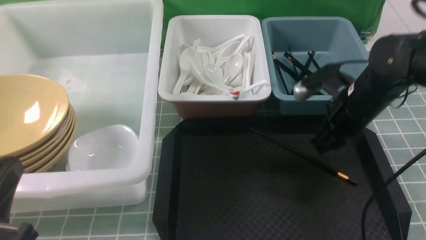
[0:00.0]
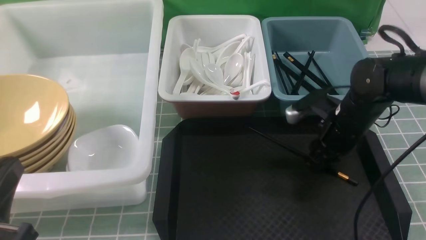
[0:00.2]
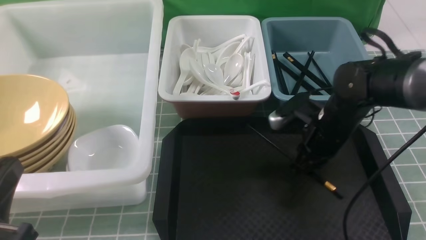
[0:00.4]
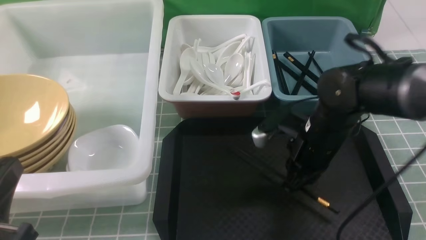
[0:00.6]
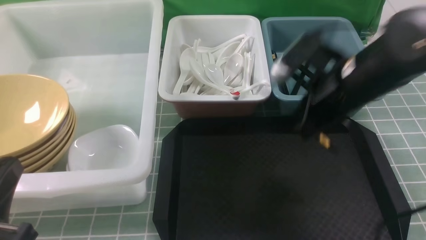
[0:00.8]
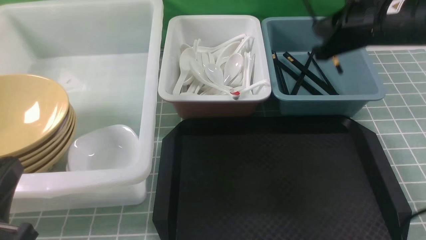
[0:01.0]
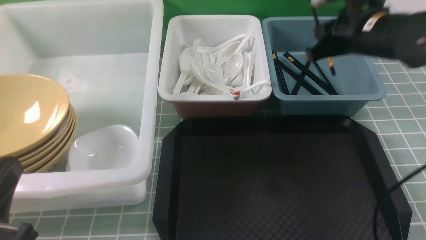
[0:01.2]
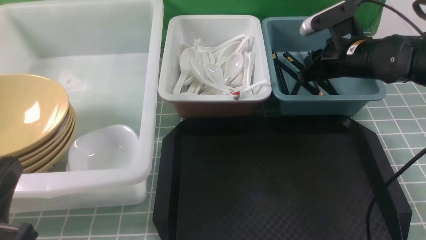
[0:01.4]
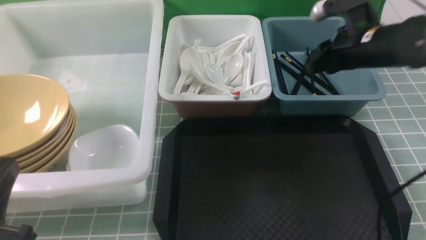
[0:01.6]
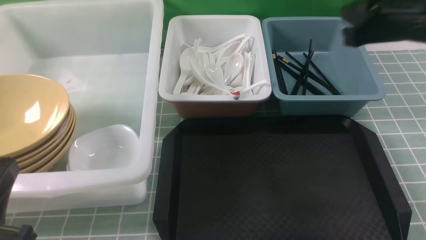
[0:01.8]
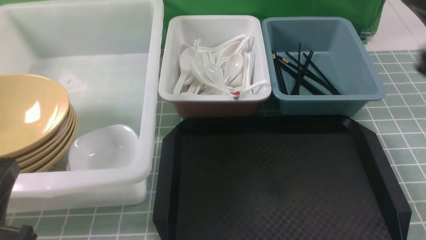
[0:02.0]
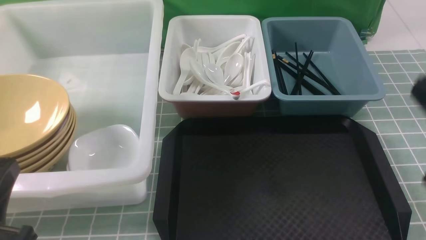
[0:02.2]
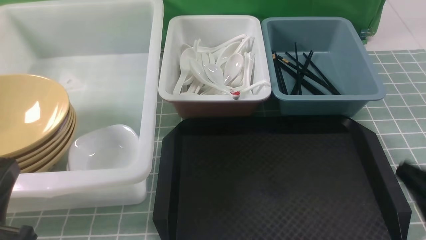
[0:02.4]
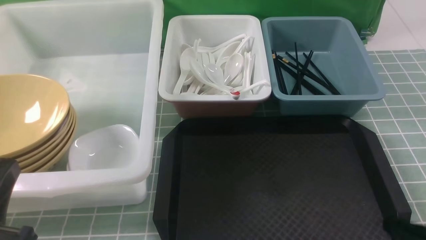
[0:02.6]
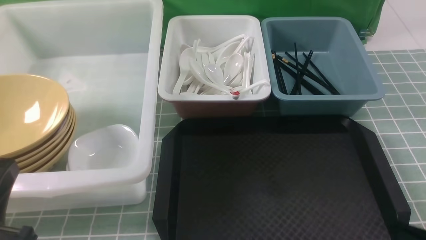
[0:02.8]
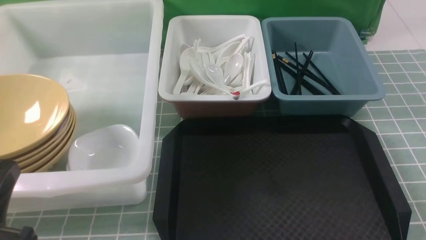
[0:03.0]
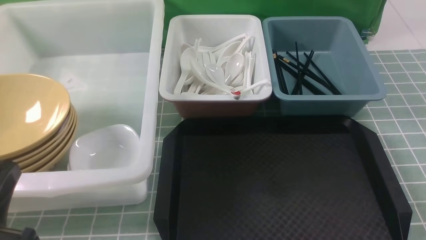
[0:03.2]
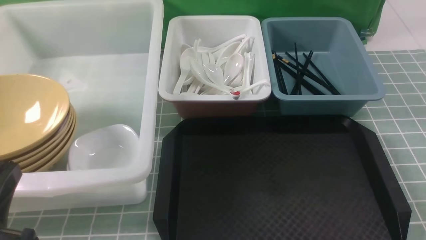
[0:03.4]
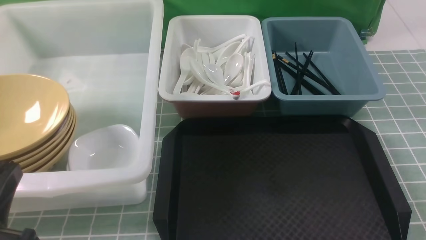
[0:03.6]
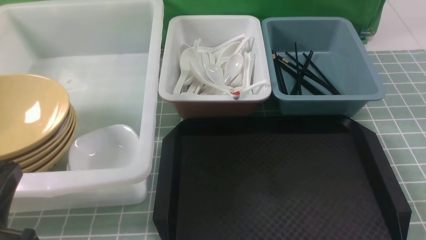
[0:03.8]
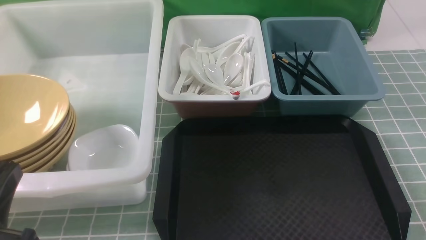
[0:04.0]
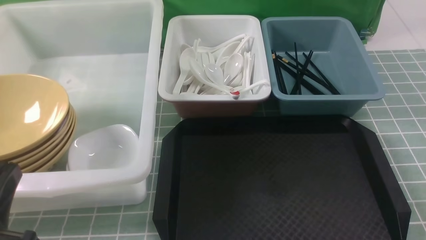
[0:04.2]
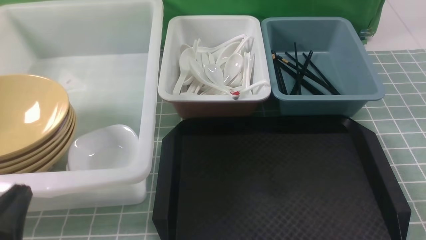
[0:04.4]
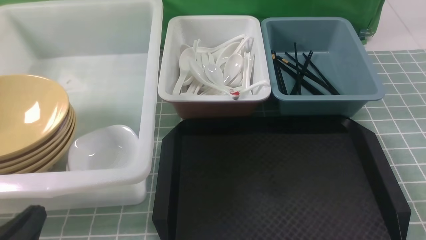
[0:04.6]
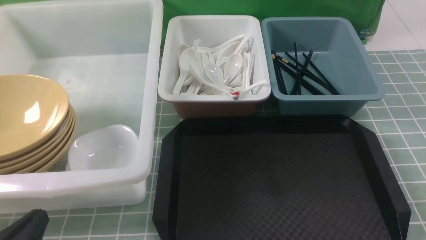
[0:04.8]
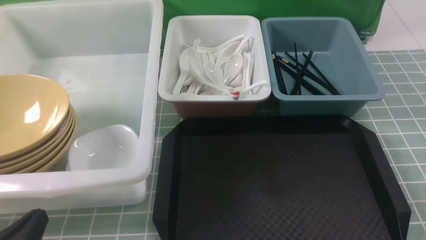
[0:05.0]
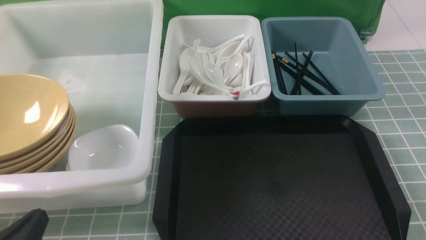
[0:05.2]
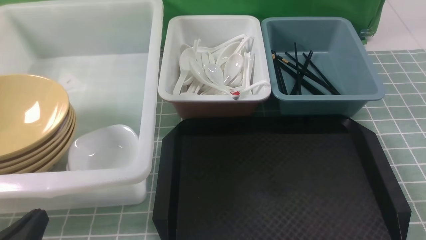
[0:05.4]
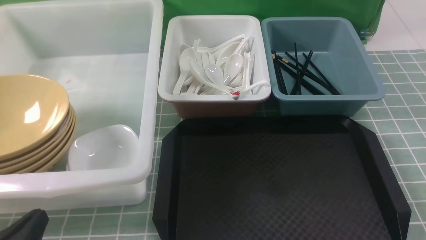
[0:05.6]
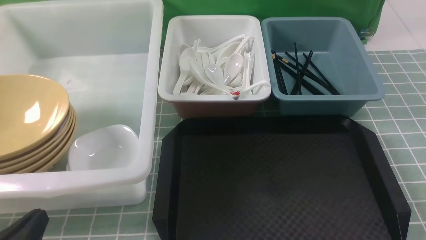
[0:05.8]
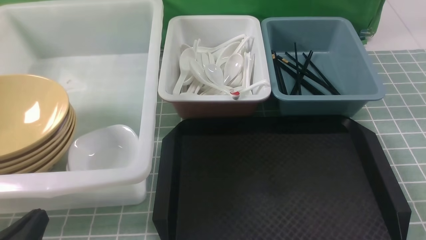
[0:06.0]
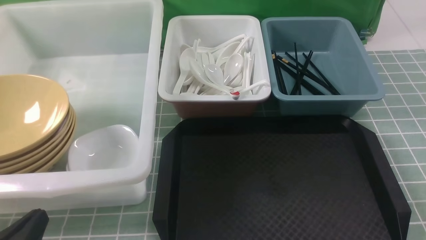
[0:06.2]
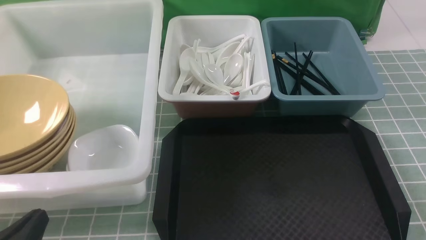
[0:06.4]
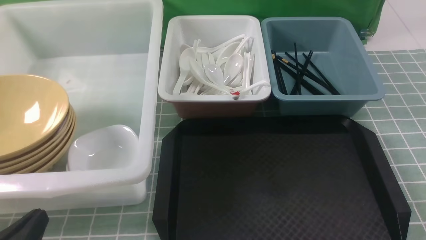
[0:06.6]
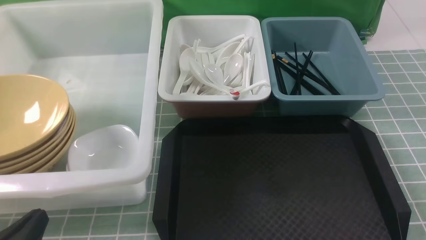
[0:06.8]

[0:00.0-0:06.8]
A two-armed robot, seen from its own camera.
Task of the whole recording: on blue table put chopsticks spoon bowls plates into blue grey white boxes.
Step, 0:00.0 to 0:00.6: use the right arm to grab a chopstick.
Step, 0:00.8 to 0:01.4: use the right arm to put a chopstick into the small storage box on the right.
0:00.0 to 0:01.4: The right gripper moves upward, some 5 cm.
0:01.4 to 0:02.8: The right gripper is displaced backward by about 30 cm, and closes.
0:04.0 to 0:05.4: The left gripper is displaced downward by about 10 cm.
0:05.4 to 0:06.8: The two grippers keep their place.

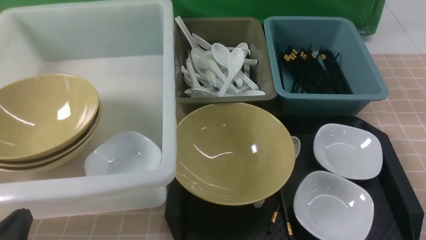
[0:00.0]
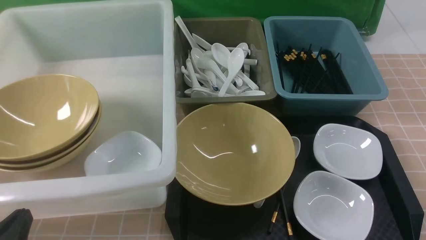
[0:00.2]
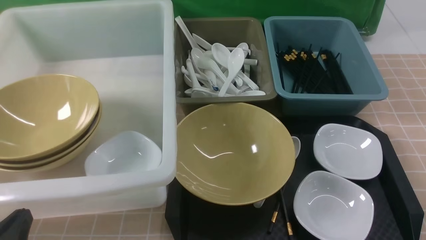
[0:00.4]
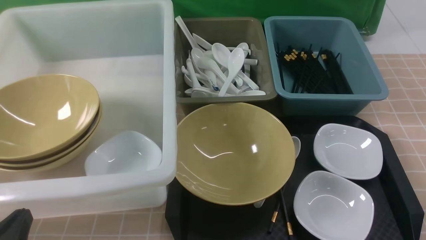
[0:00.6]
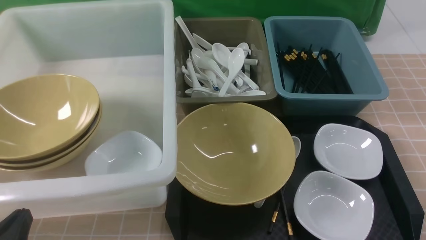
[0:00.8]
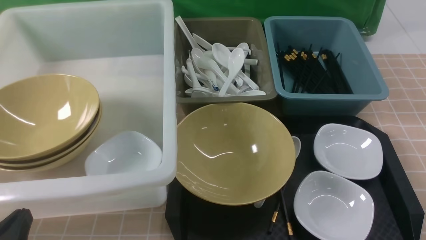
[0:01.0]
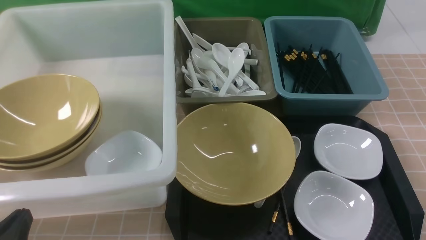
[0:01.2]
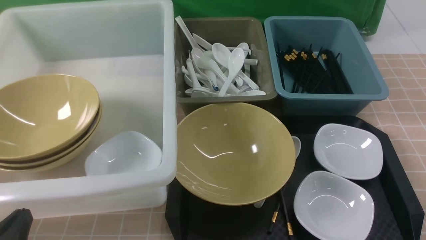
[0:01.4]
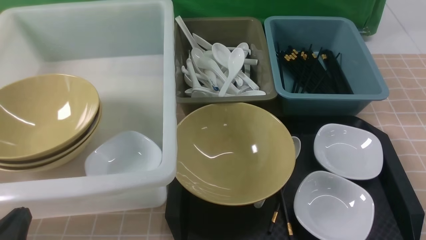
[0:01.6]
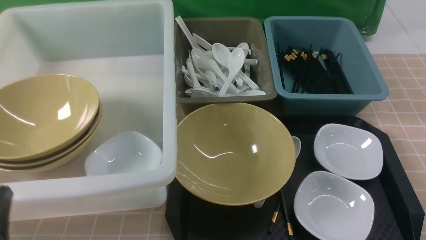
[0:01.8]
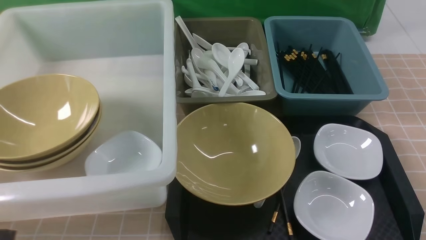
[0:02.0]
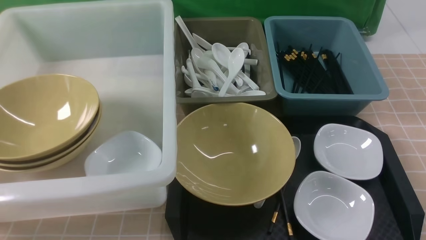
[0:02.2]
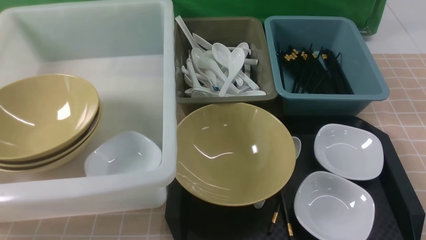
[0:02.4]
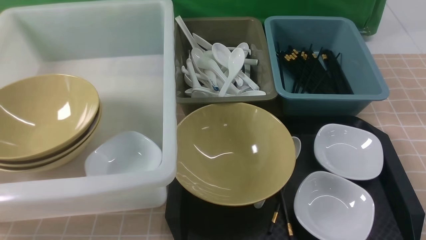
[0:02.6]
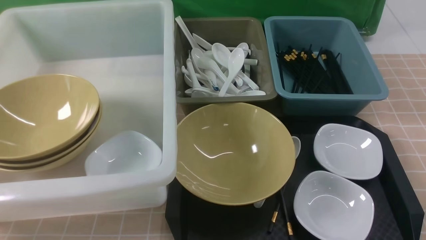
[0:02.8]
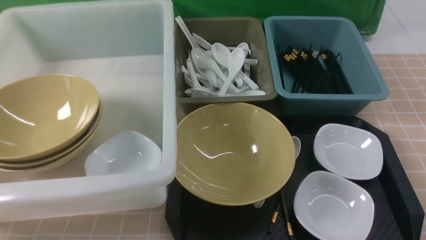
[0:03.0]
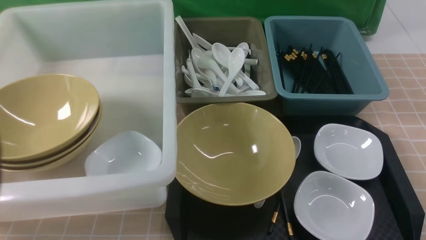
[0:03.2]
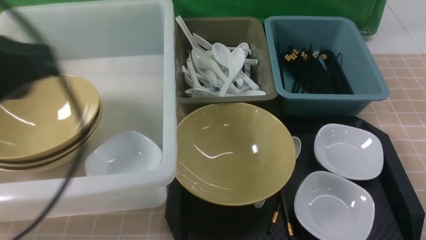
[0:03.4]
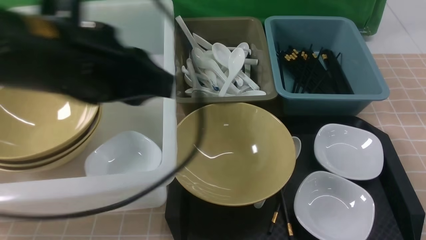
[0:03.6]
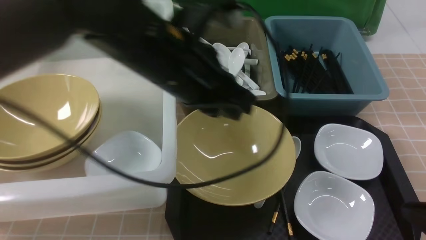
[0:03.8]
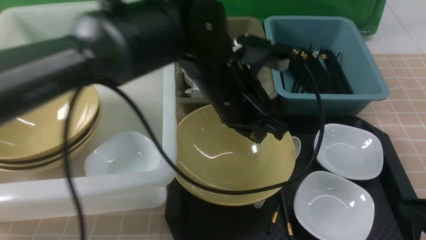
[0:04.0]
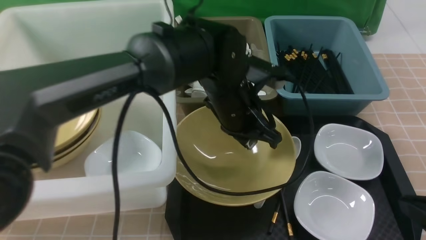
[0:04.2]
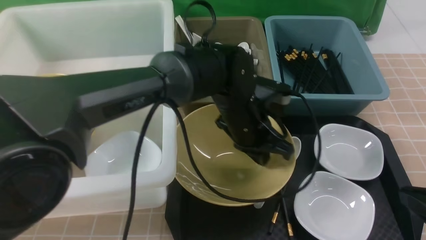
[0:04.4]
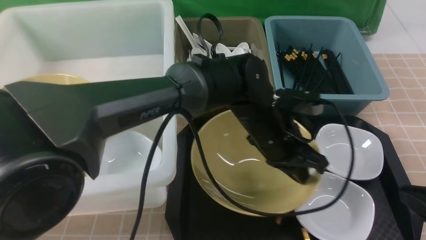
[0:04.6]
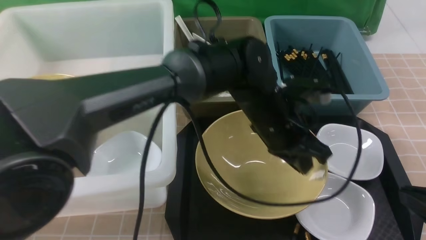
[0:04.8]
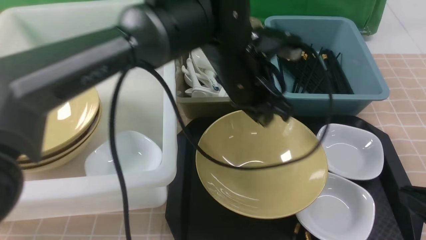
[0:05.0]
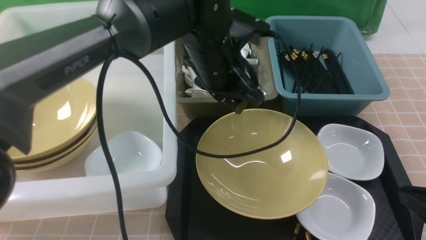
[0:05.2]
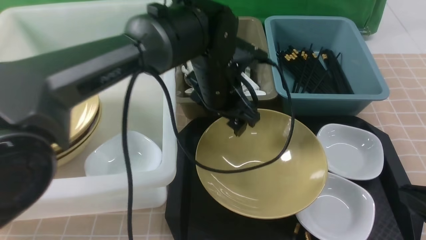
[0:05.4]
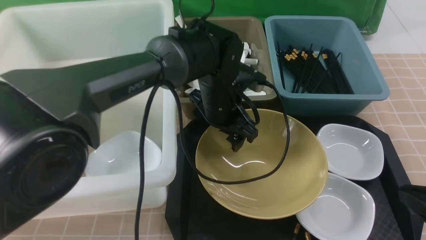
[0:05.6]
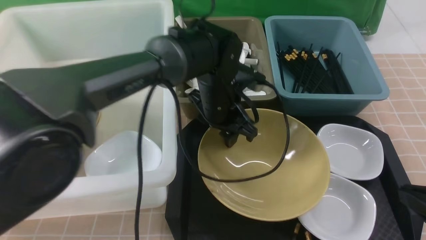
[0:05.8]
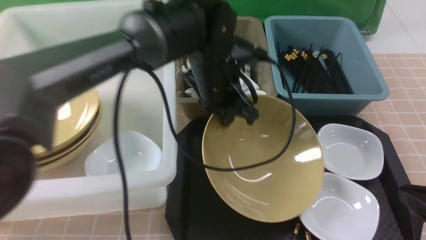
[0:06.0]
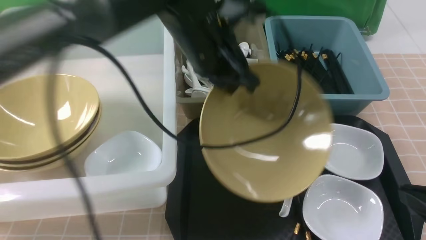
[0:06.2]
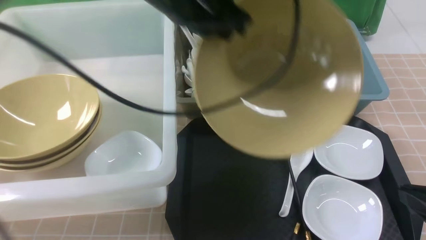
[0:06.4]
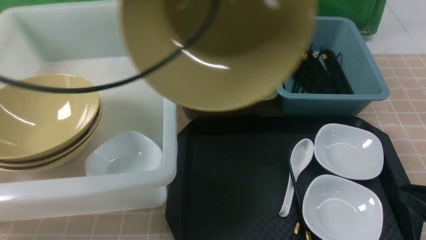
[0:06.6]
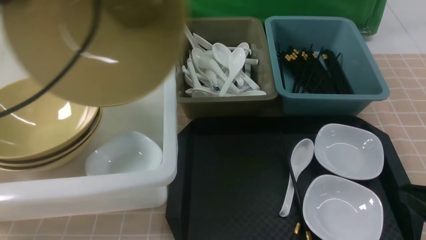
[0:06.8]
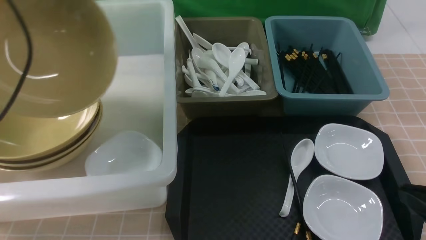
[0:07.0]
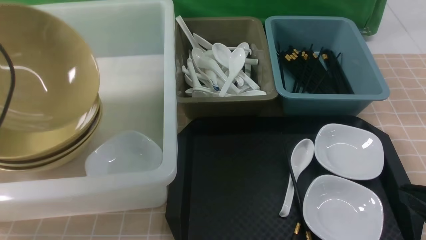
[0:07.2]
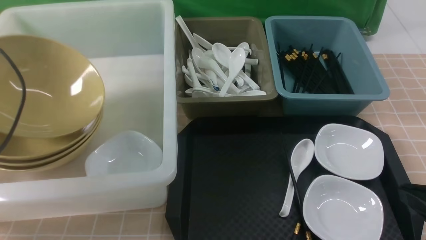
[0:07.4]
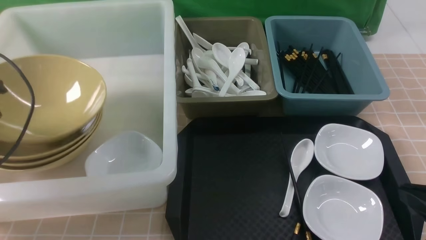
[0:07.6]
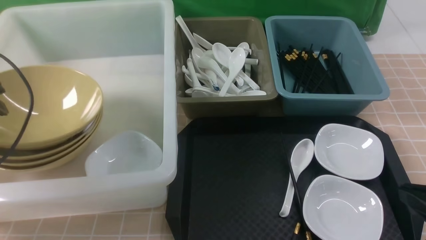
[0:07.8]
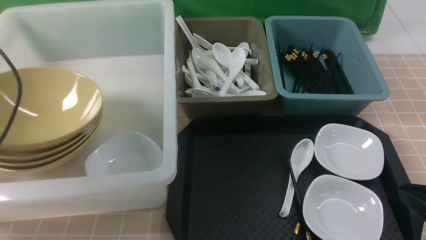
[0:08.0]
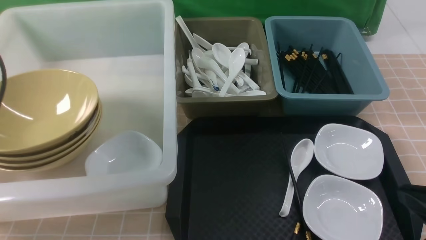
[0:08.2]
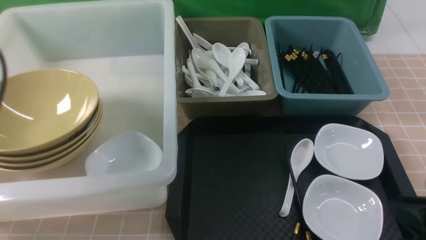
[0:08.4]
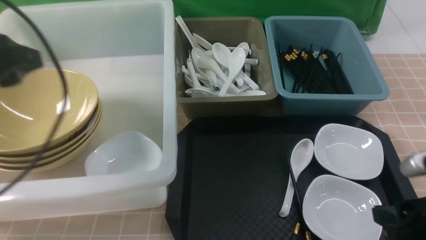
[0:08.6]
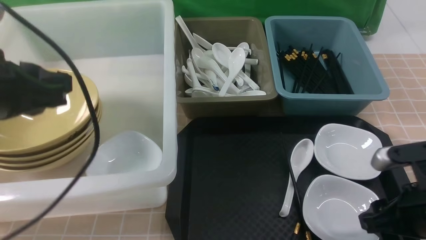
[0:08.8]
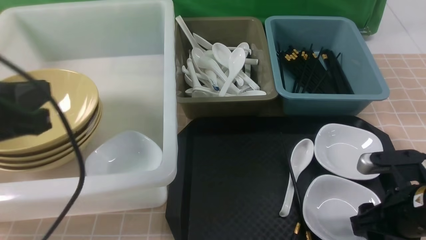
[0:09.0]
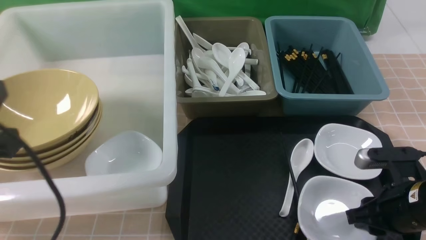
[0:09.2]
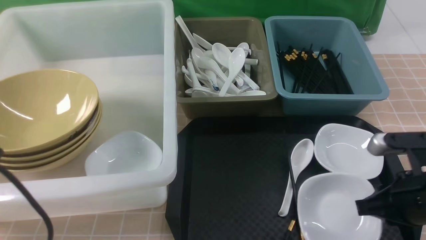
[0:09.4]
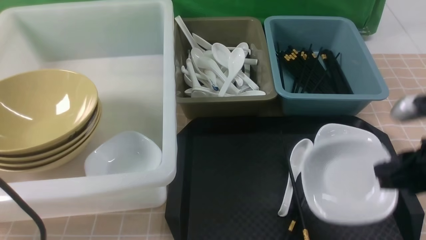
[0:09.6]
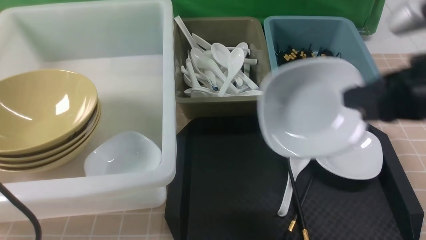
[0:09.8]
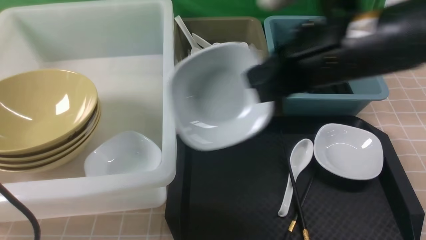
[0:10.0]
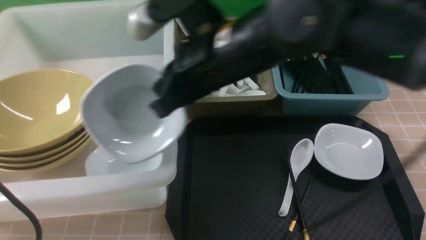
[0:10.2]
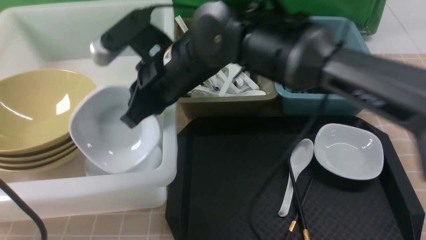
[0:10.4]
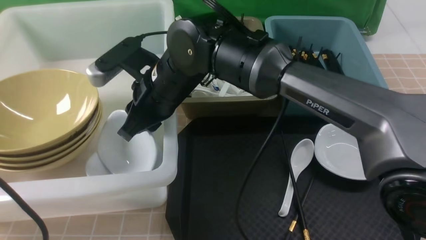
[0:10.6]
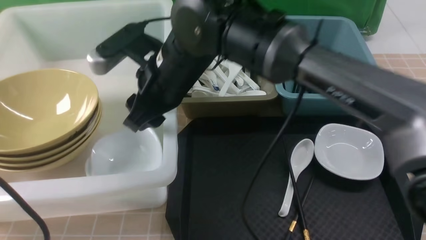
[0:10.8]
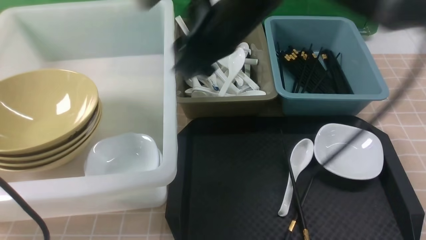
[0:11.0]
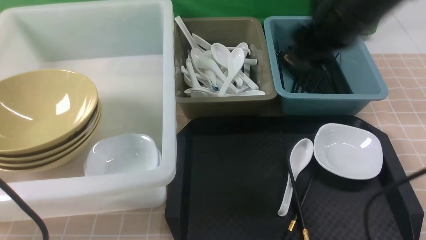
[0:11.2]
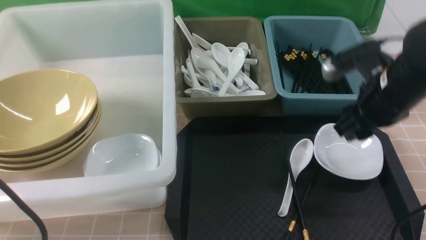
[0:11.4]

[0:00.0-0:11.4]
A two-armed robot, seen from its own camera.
Task of the whole recording: on brown table put chopsticks spoon bowls plates into blue grey white boxes.
Step, 0:00.0 to 0:06.0: use the left arm to grab the yellow noodle bowl on the left.
Step, 0:06.2 to 0:08.4: use the left arm to put the noodle bowl into the large storage box on the left.
Step, 0:08.6 to 0:09.2: use the right arm to grab the plate.
Step, 0:09.4 to 0:10.8: use the right arm to put the plate into the large storage box on the left.
0:00.0 to 0:01.4: Both grippers stay about where they are.
0:01.4 to 0:02.8: The left gripper moves upward, approximately 20 cm.
0:02.8 to 0:04.2: The left gripper moves to the right, forward and downward, roughly 40 cm. The right gripper travels downward and forward by about 10 cm.
0:04.2 to 0:05.6: The left gripper ends up some 5 cm from where it was, and opens.
0:05.6 to 0:07.2: The left gripper moves to the left, some 35 cm, and closes up.
0:07.2 to 0:08.6: The right gripper opens; the left gripper travels to the right and backward by approximately 10 cm, and opens.
0:08.6 to 0:10.0: The right gripper moves to the left, upward and forward, approximately 25 cm, and closes up, while the left gripper heads backward, covering about 10 cm, and closes up.
0:10.0 to 0:11.4: The right gripper goes some 15 cm to the right, downward and forward, and opens up.
